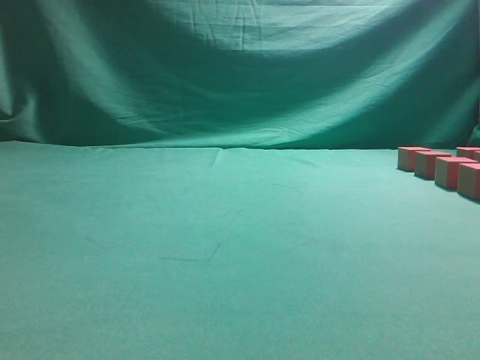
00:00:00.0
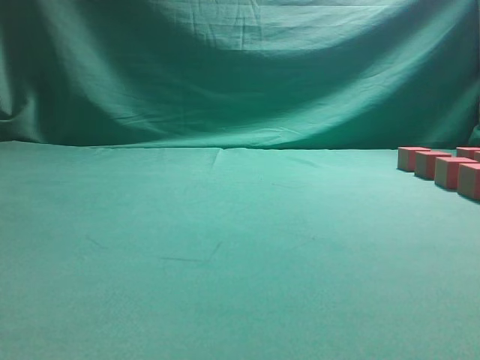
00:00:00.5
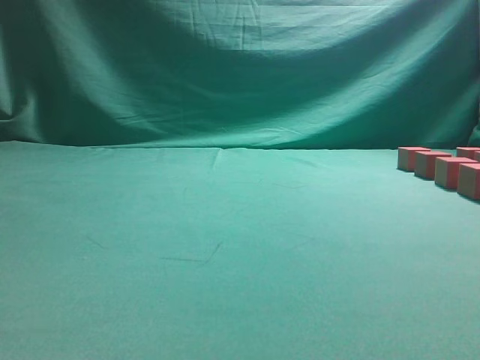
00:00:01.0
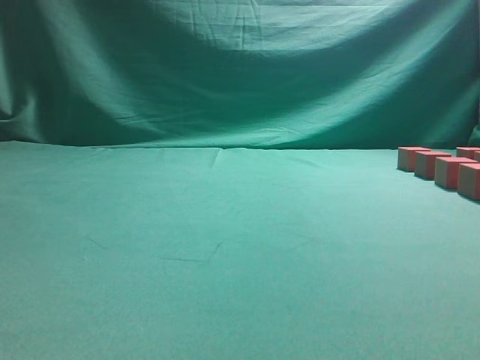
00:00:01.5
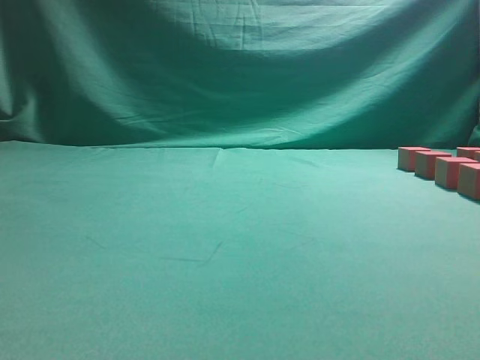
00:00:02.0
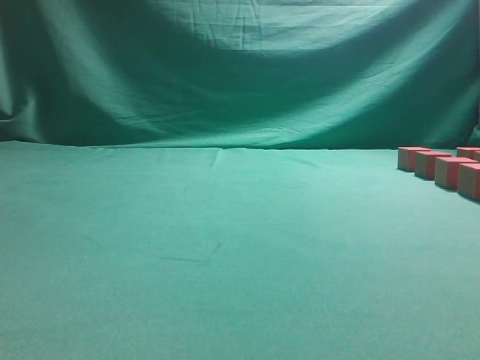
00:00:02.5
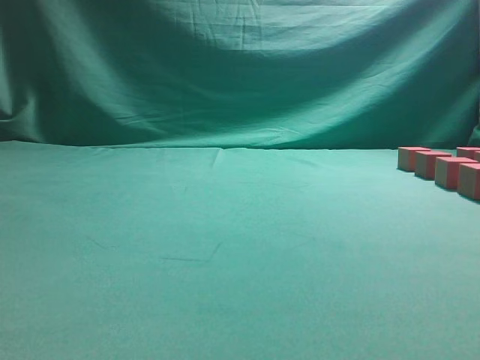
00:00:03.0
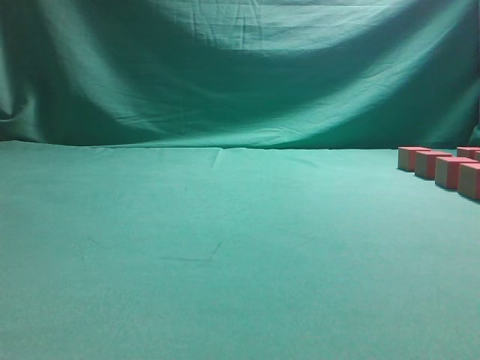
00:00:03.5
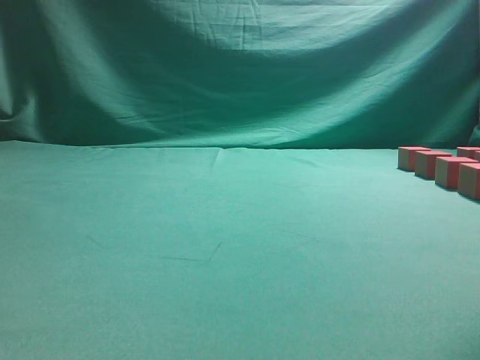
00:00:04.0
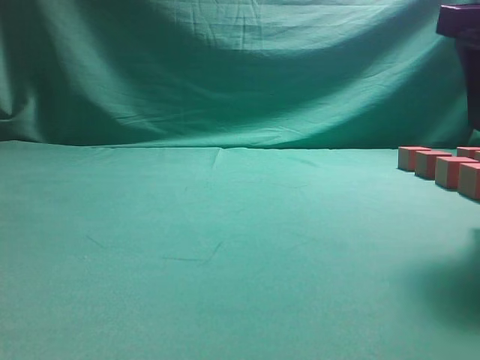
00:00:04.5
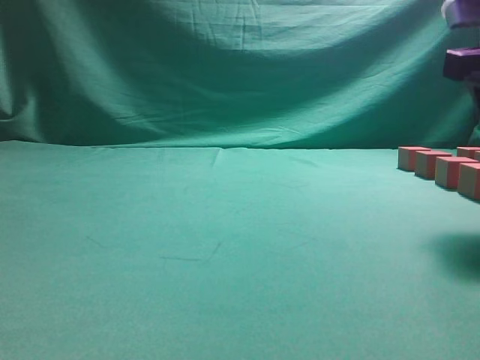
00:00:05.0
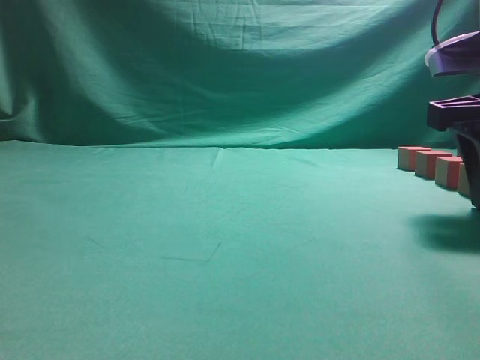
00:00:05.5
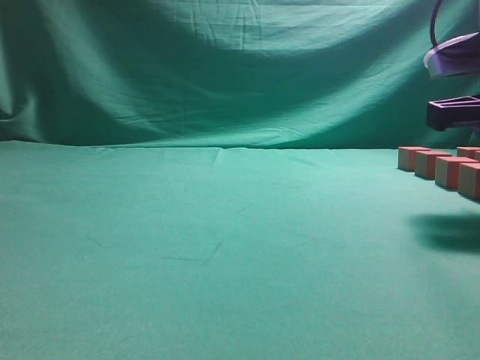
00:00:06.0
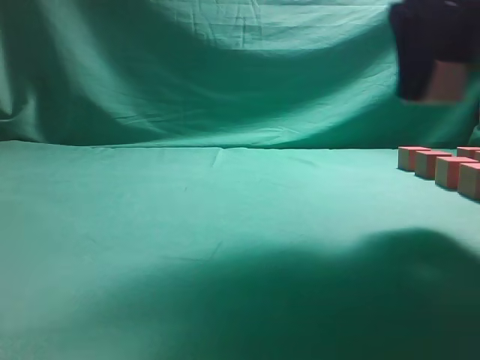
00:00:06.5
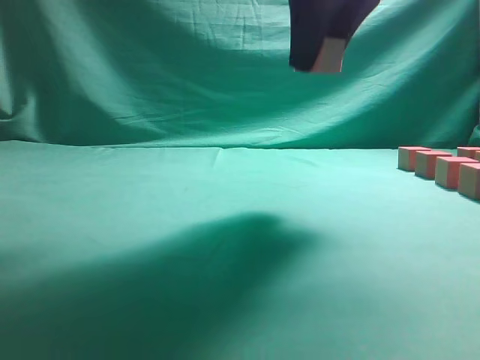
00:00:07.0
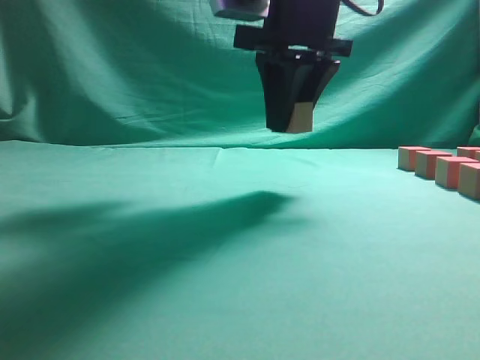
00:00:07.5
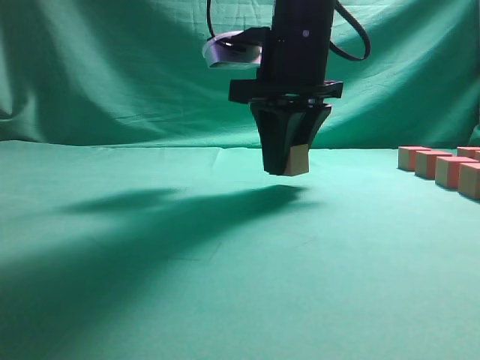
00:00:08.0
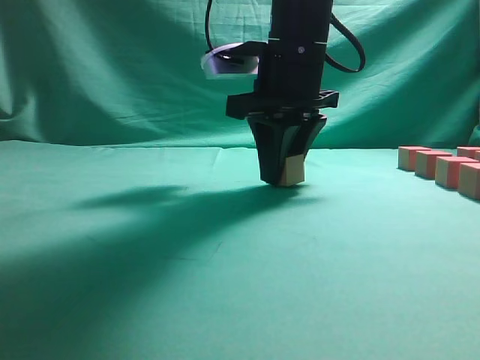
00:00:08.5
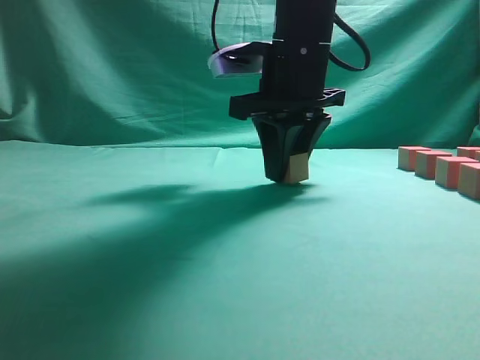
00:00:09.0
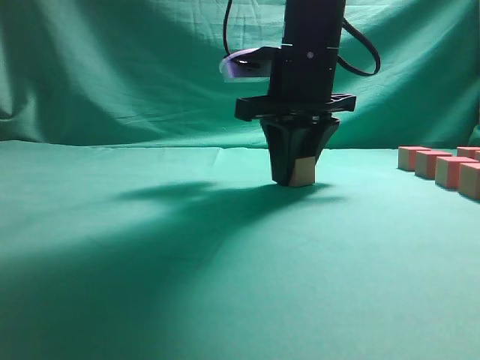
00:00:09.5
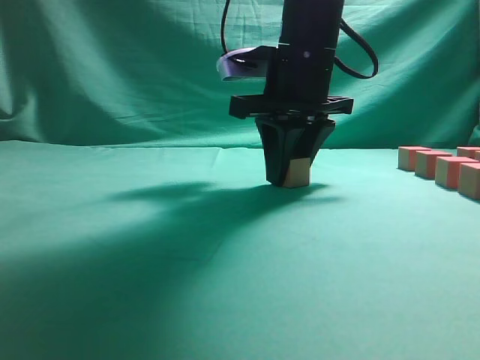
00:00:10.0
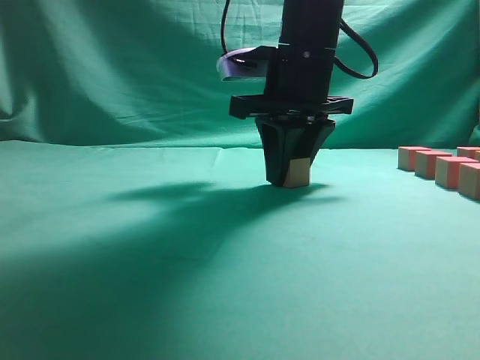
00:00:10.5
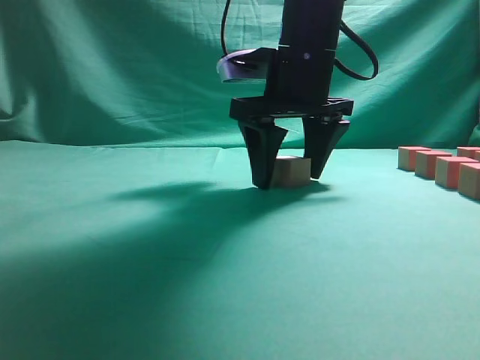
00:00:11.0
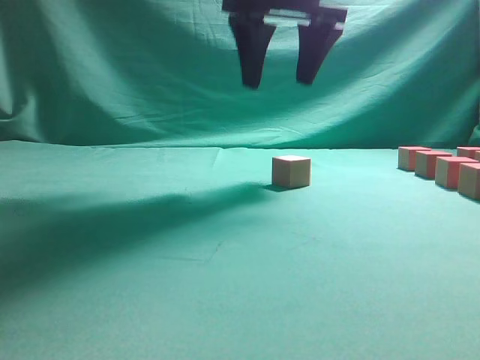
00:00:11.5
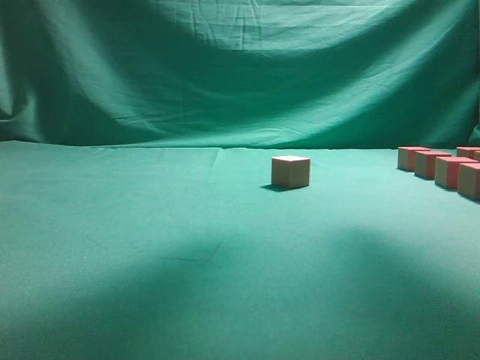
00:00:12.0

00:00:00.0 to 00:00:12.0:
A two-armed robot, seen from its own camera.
Task of the whole recording: pick up the multiple cubes in two columns one by one and place them in another position on the table.
Step, 00:00:00.0 to 00:00:06.0: Pick up the block on the table.
Step, 00:00:06.5 to 00:00:11.5: Place the block at the correct position to assemble the letter S.
00:00:04.0 to 00:00:06.0: The right gripper goes about 10 cm downward and forward, and opens.
00:00:06.0 to 00:00:08.0: The right gripper moves to the left and forward, about 20 cm.
00:00:08.0 to 00:00:10.0: There are only small adjustments of the grippers.
00:00:10.0 to 00:00:12.0: The right gripper heads upward and to the right, covering roughly 25 cm, and opens its fingers.

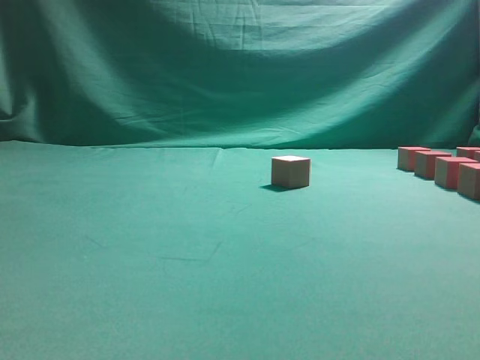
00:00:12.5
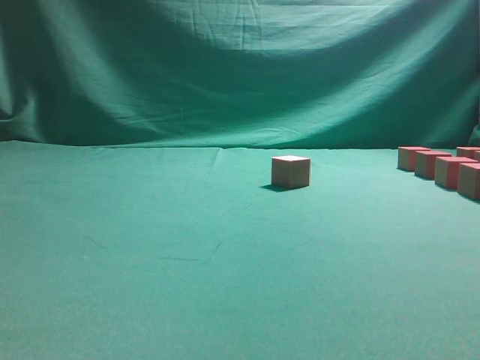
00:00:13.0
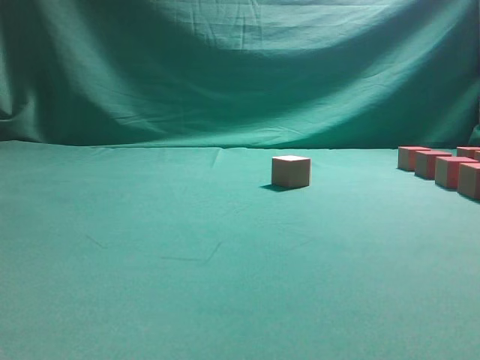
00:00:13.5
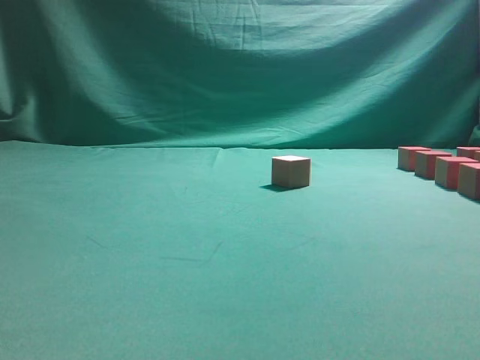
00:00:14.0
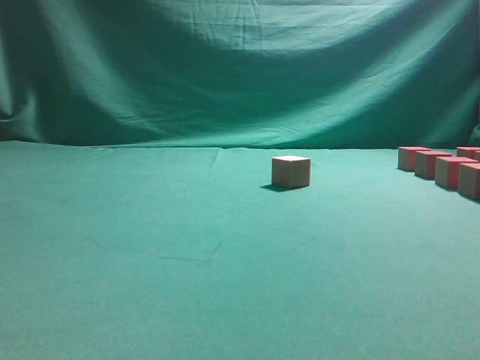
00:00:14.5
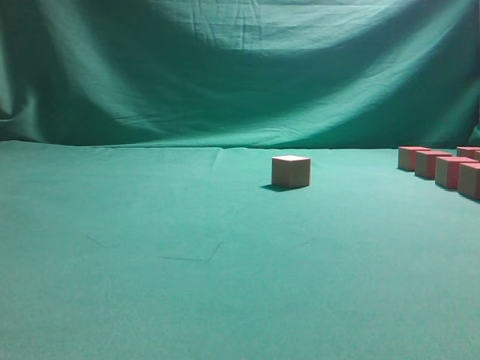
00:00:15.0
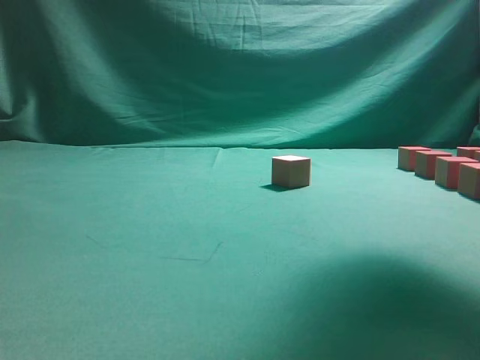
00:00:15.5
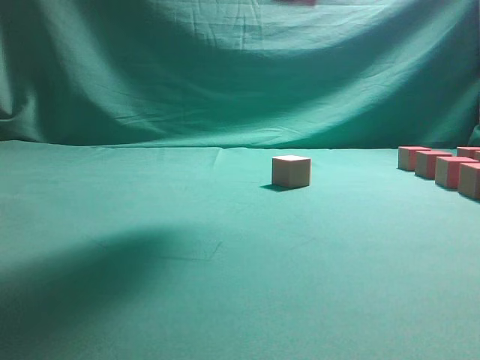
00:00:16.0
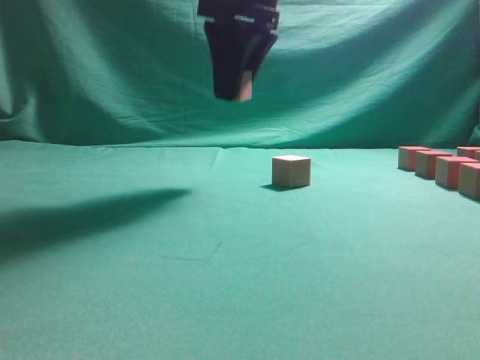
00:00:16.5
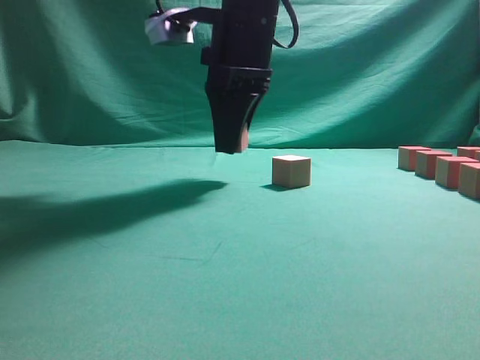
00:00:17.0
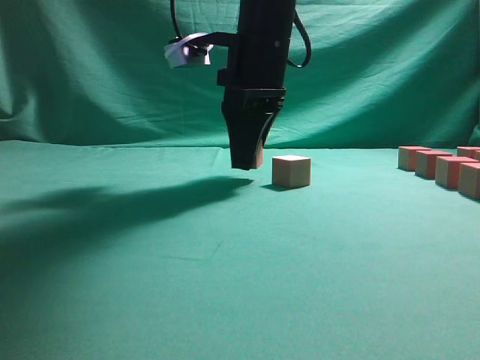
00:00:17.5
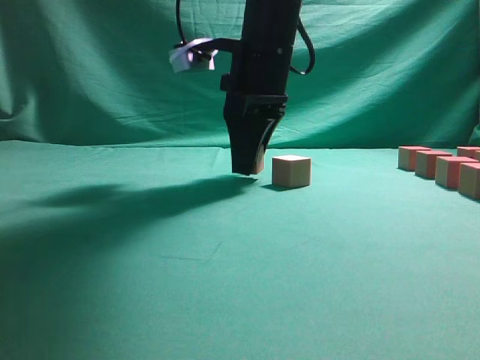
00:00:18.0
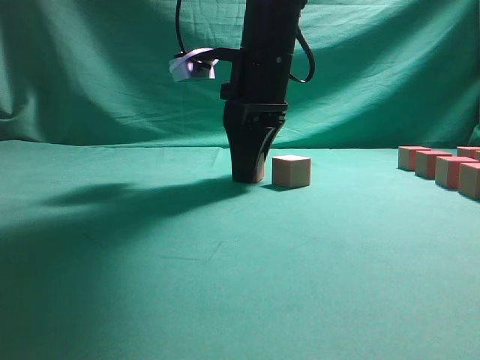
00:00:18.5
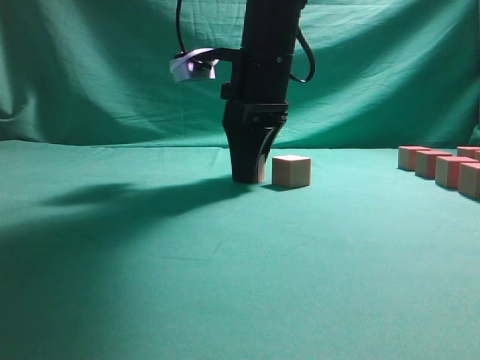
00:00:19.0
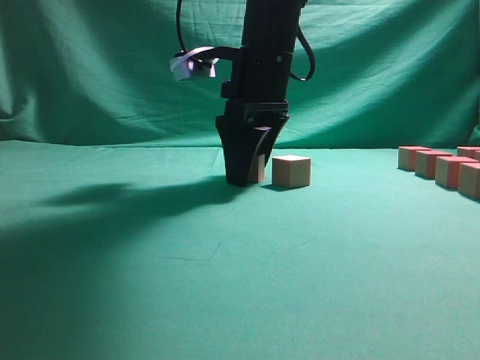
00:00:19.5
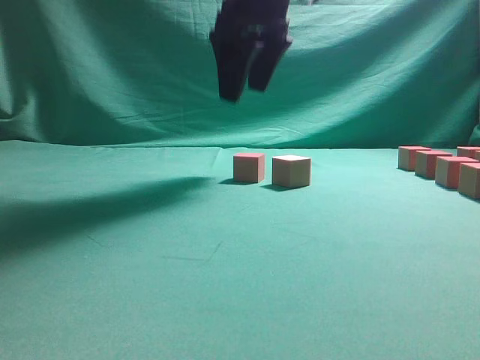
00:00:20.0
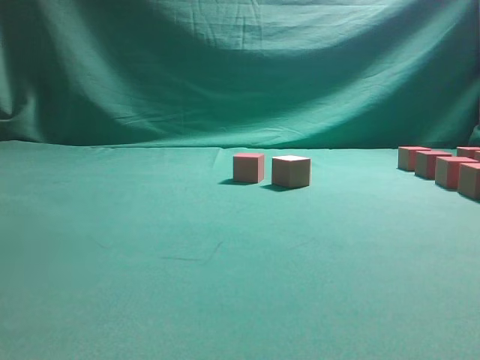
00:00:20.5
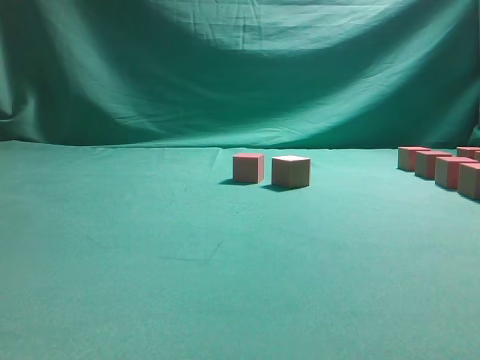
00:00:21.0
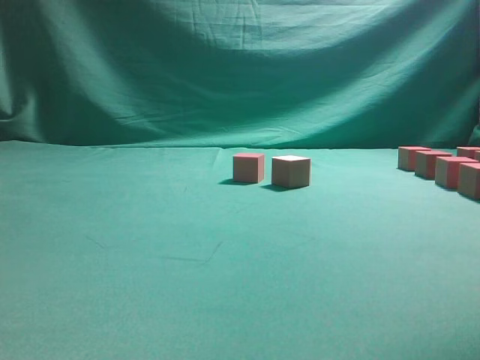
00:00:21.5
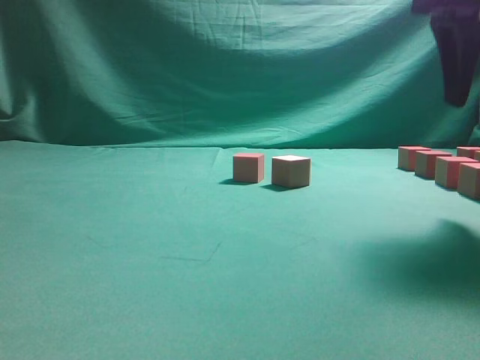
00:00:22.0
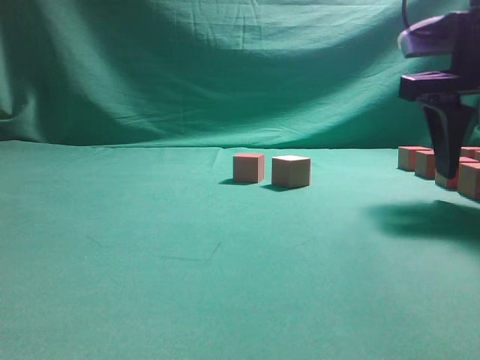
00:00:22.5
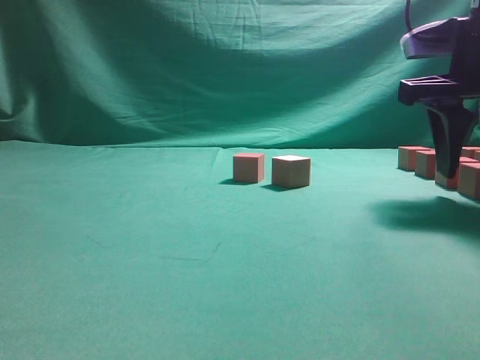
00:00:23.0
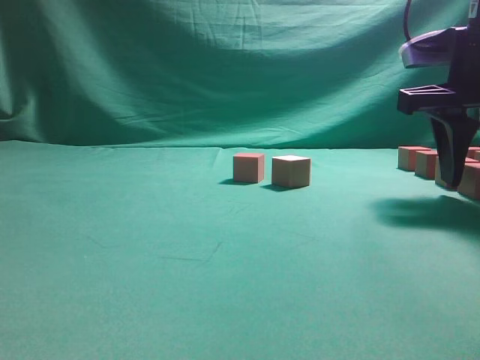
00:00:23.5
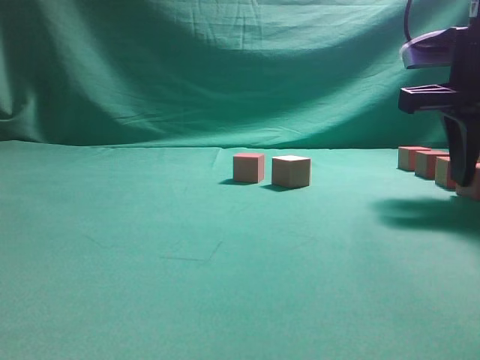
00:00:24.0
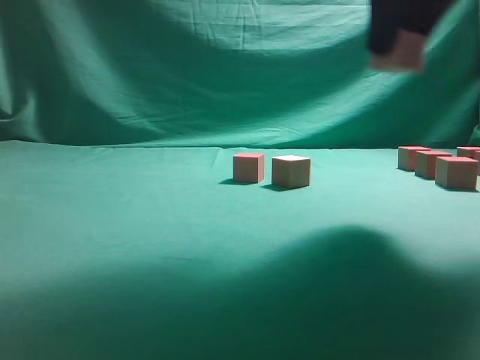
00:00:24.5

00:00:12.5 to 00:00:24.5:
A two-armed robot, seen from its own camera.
Task of the whole recording: pick up the multiple cubes in two columns one by one and place them in another position on the table.
Step, 00:00:15.5 to 00:00:20.0: Place the block at the correct position to assemble the letter S.
Step, 00:00:20.5 to 00:00:24.0: Pick up the block on the table.
00:00:14.5 to 00:00:16.5: The right gripper goes approximately 30 cm to the left.
00:00:16.5 to 00:00:18.5: The right gripper shifts some 10 cm downward.
00:00:18.5 to 00:00:20.5: The right gripper shifts some 25 cm upward, and opens up.
00:00:20.5 to 00:00:22.5: The right gripper travels downward and to the right by approximately 30 cm.
00:00:22.5 to 00:00:24.5: The right gripper heads upward and to the left, covering approximately 10 cm, and closes.

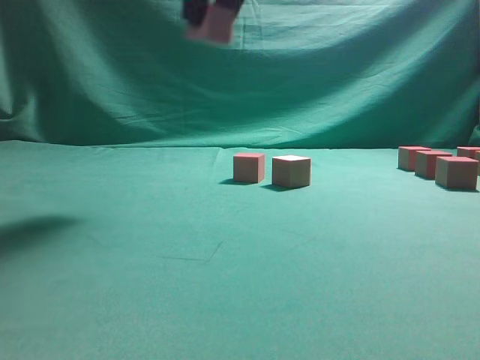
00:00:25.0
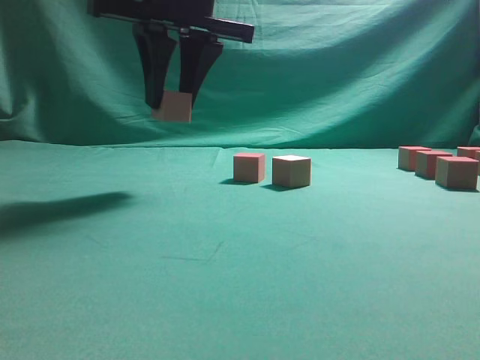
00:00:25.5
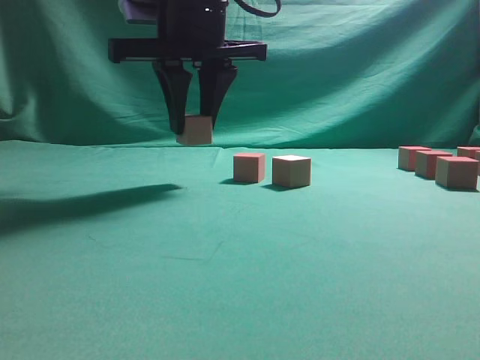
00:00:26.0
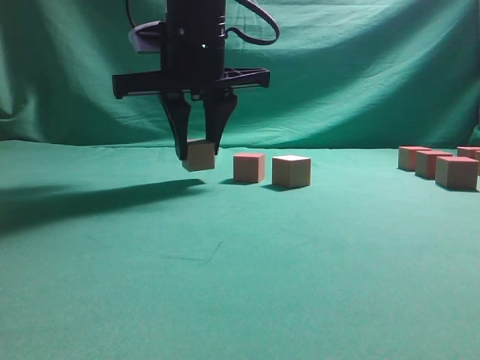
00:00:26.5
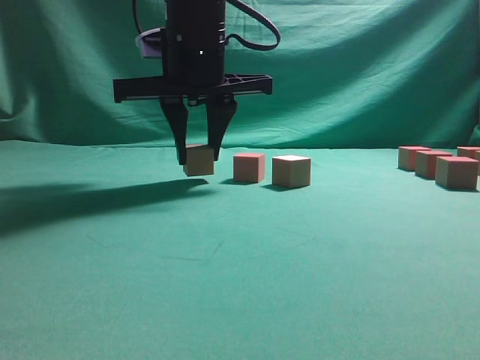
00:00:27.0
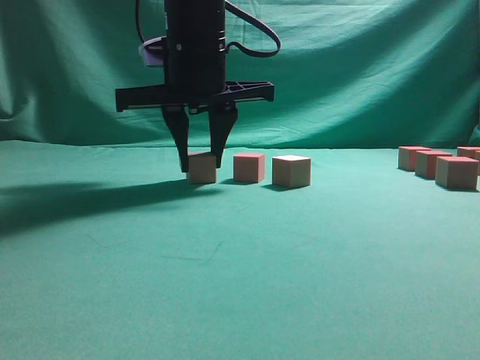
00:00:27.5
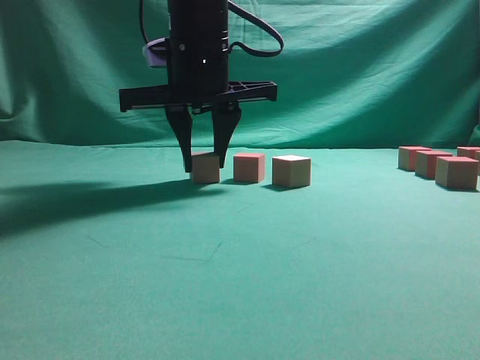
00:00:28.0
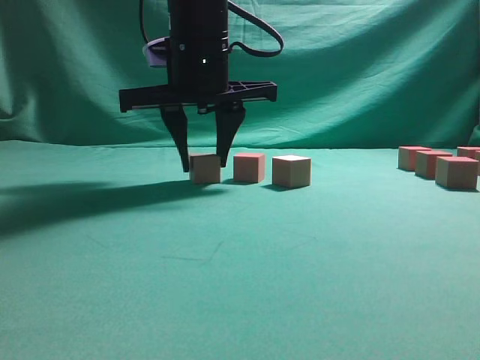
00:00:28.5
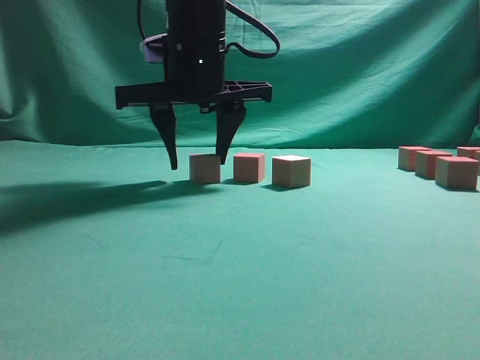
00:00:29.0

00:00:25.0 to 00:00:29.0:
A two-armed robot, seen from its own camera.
Task of the whole recording: pick up the multiple cubes in two columns one by one and place them in another position on the table.
00:00:25.0 to 00:00:27.0: The right gripper moves downward and forward, some 15 cm.
00:00:27.0 to 00:00:29.0: The two grippers keep their place.
